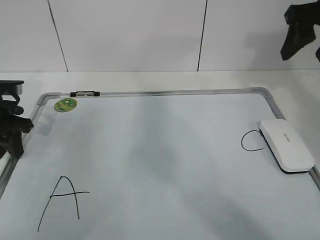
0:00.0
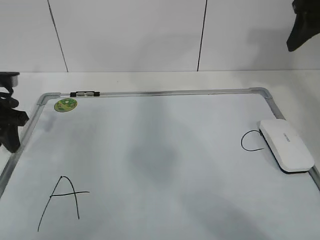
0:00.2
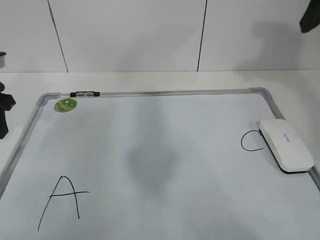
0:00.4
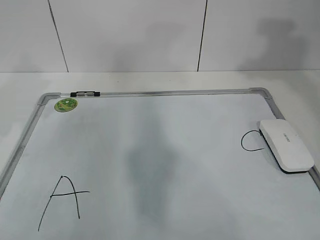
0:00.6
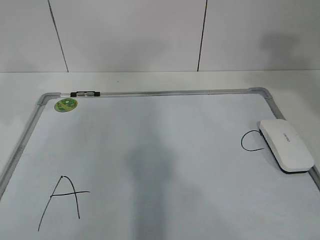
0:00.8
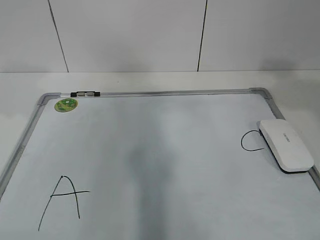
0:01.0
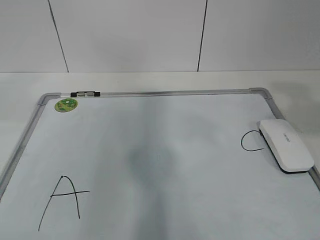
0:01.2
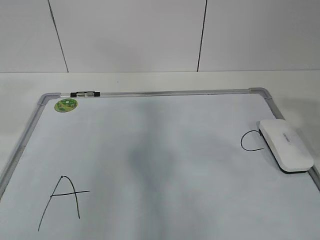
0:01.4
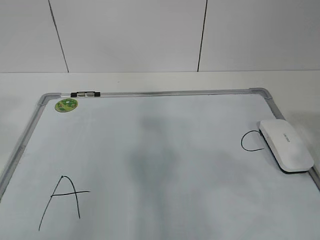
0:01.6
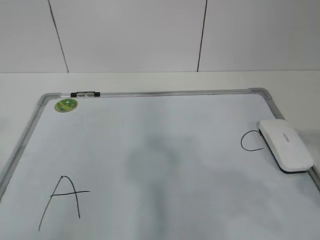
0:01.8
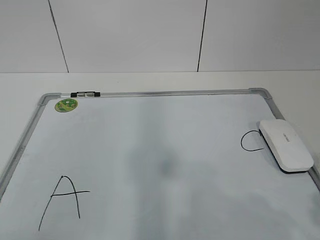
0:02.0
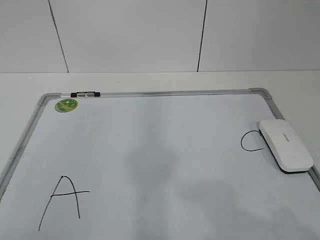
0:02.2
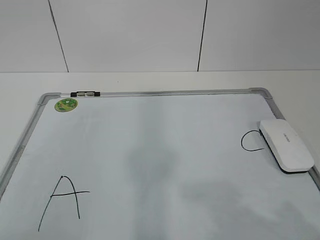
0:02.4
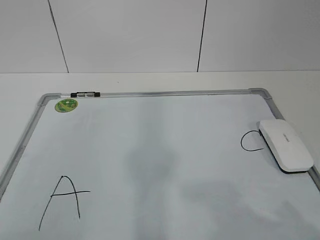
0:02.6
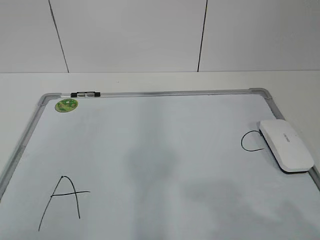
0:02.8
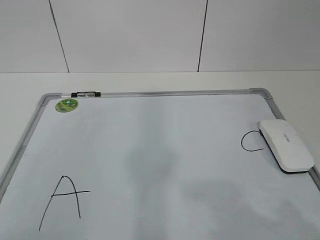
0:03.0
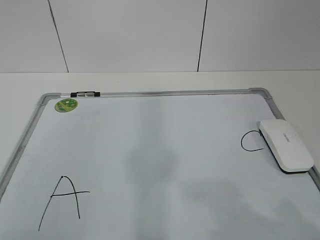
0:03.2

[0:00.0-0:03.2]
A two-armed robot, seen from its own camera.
Task of the whole recording: pick up the eraser on the blackboard and erase the letter "B".
0:00.0 to 0:01.6: The left gripper shifts roughly 35 cm backward and upward. Meanwhile the right gripper goes roughly 30 cm backward.

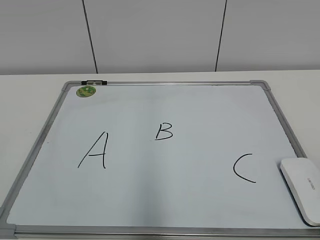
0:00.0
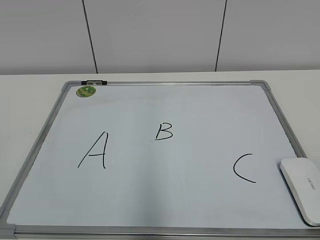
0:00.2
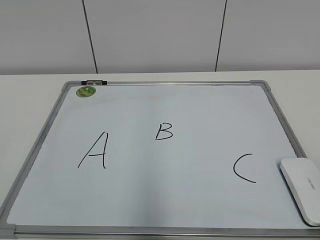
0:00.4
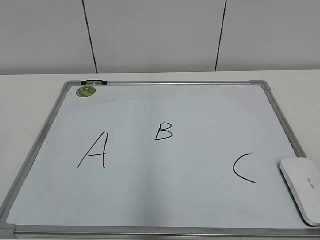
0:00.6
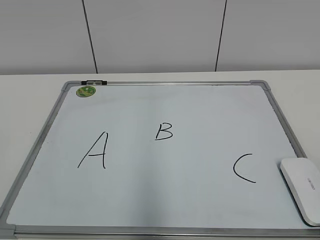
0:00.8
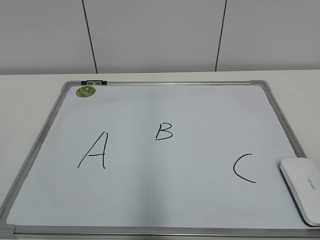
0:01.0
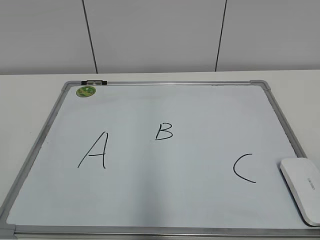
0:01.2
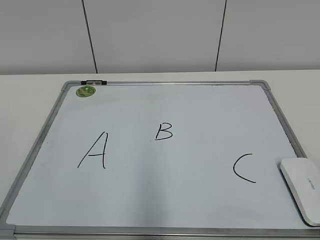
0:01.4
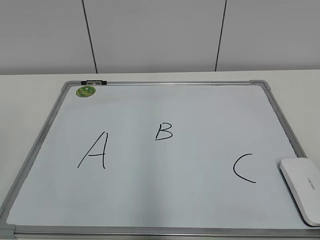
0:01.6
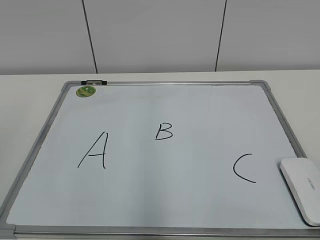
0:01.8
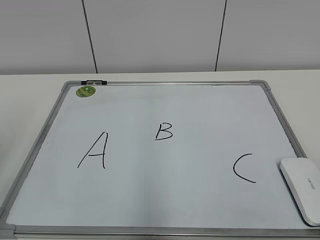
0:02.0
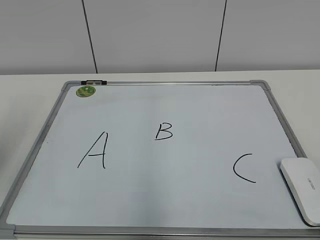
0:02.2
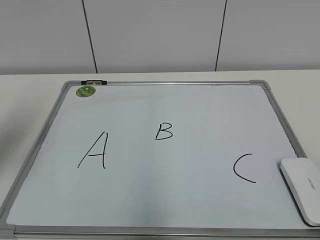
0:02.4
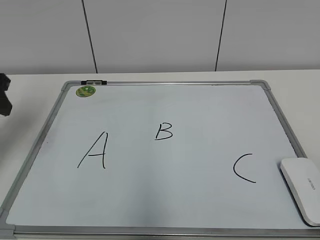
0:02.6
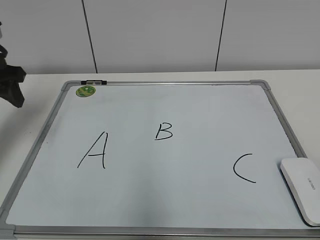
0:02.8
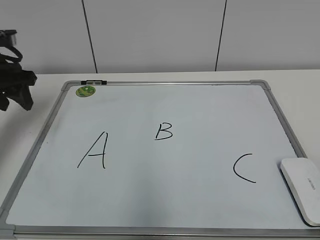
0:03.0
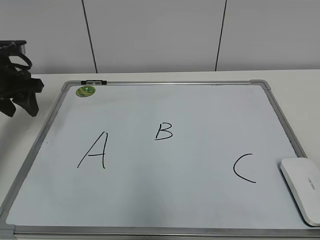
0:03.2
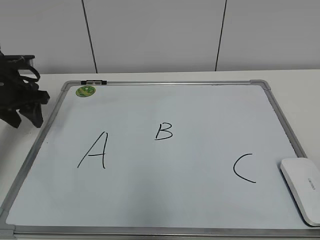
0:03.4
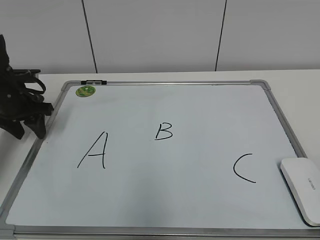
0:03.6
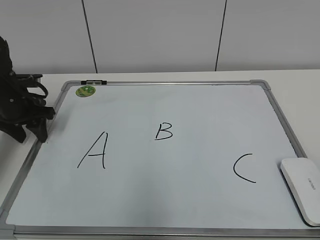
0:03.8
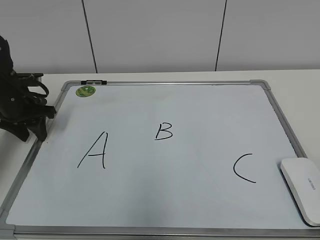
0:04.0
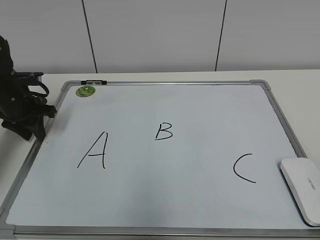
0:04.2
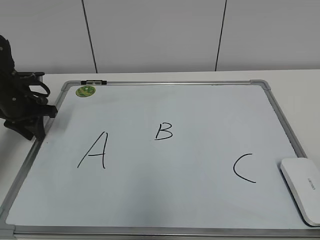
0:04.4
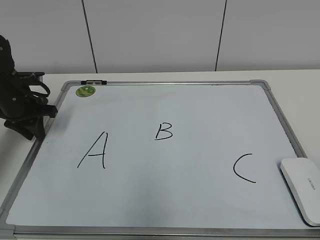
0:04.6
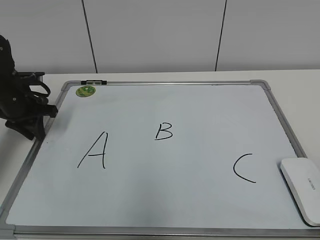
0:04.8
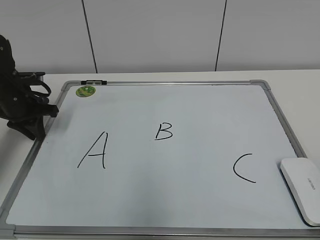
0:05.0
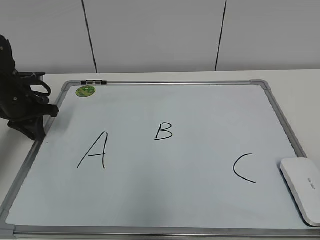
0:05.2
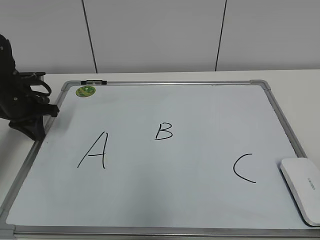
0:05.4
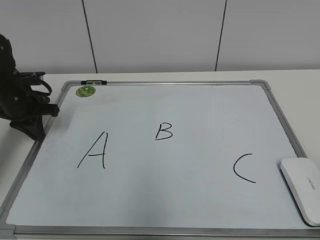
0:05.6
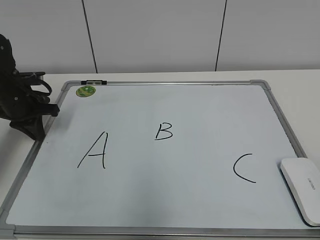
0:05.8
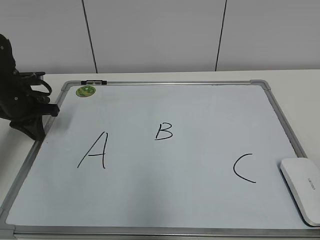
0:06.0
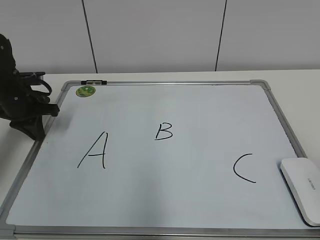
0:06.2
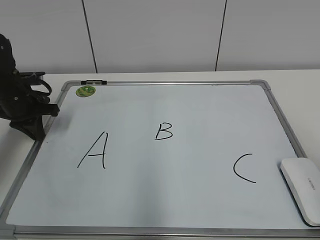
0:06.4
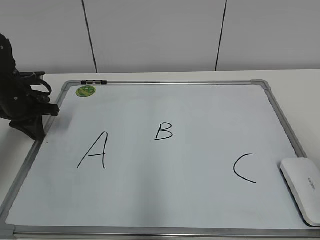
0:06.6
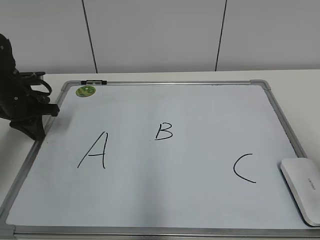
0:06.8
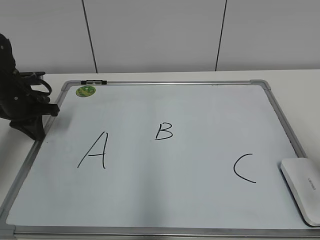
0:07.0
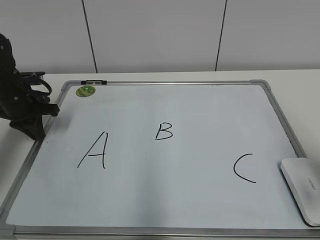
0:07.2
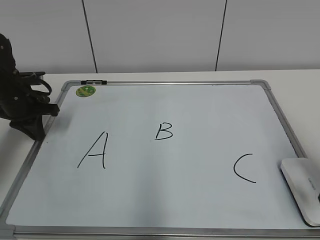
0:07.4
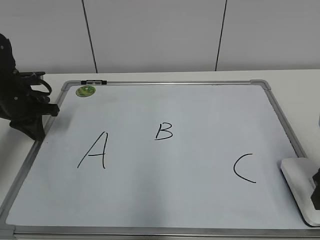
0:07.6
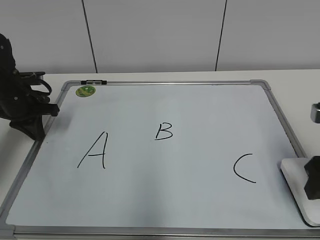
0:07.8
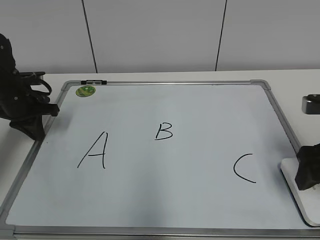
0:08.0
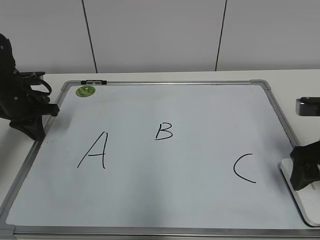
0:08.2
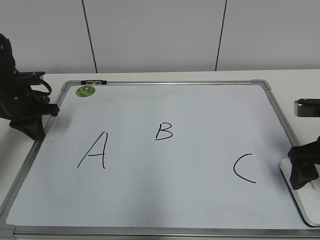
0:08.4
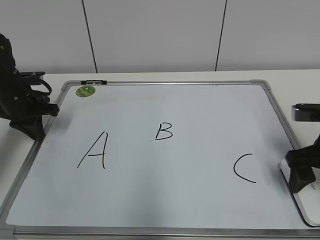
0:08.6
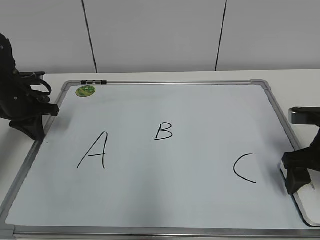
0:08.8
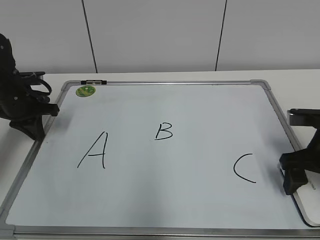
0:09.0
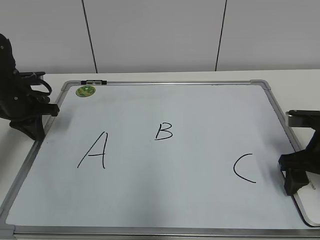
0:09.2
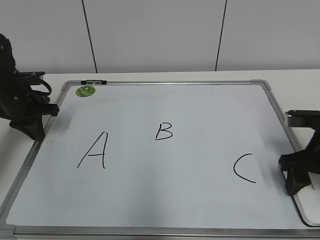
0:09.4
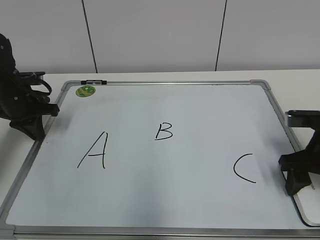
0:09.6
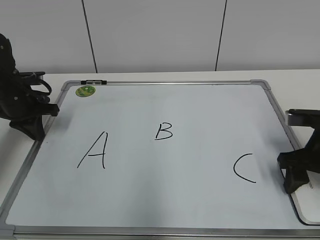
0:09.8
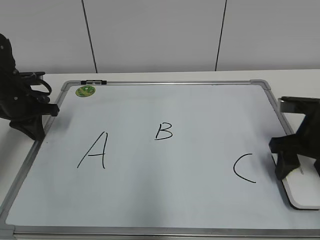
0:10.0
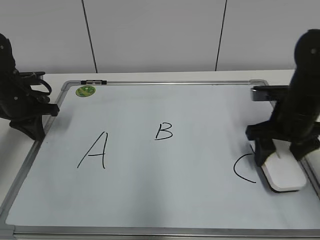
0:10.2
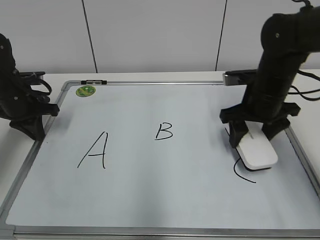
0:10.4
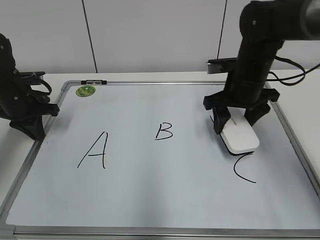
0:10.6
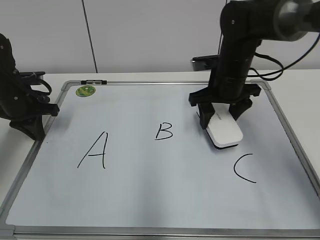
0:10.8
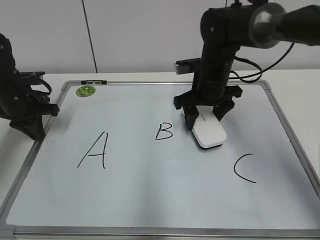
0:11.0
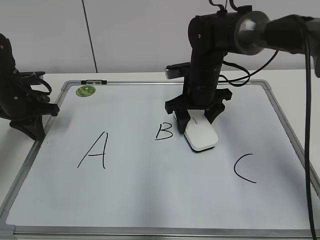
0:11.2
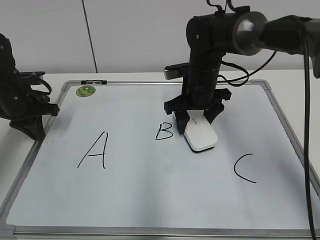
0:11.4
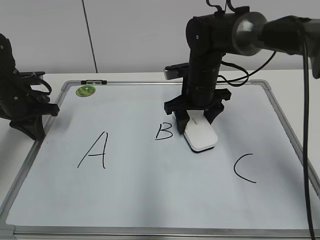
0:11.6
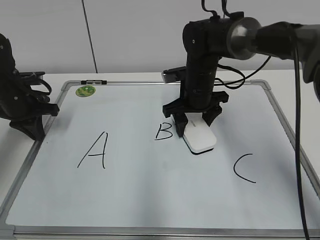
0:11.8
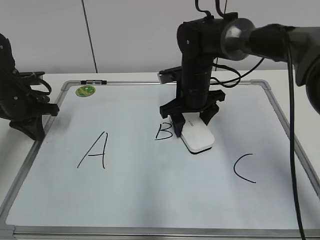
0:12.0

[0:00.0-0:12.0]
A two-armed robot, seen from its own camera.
Task of the whole recording: pick up the eraser on the blackboard and erase the letter "B".
Step, 0:00.0 to 0:05.2: Hold the drawing board steady with your left hand.
Step, 0:05.4 to 0:09.4: Grab the eraser with your right hand.
0:01.6 to 0:03.0: The left gripper goes about 35 cm forward.
0:03.0 to 0:04.4: The left gripper travels downward by roughly 10 cm, and closes up.
0:04.4 to 0:06.0: The left gripper closes.
0:06.0 to 0:07.6: The right gripper is displaced forward by some 20 cm.
0:07.6 to 0:09.0: The right gripper is displaced forward by approximately 10 cm, and opens up.
0:09.0 to 0:10.4: The right gripper moves forward and to the left, some 10 cm, and closes its fingers.
0:10.4 to 0:12.0: The right gripper is displaced to the left and forward by about 15 cm.

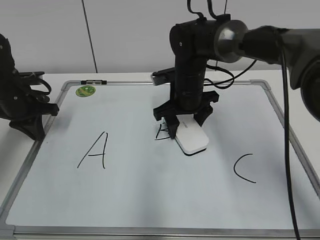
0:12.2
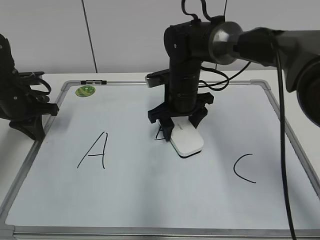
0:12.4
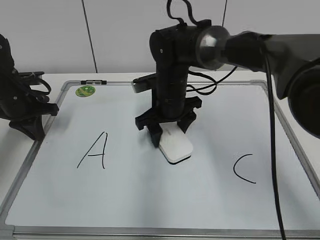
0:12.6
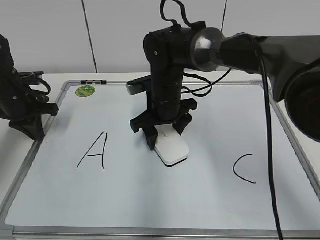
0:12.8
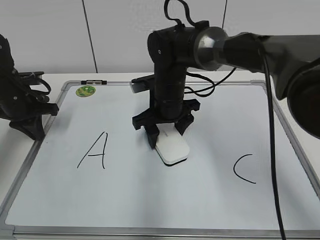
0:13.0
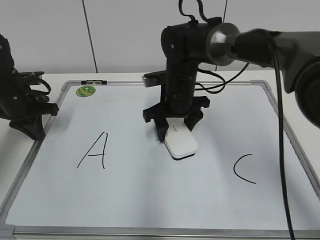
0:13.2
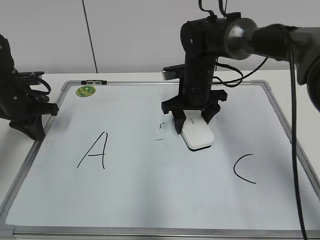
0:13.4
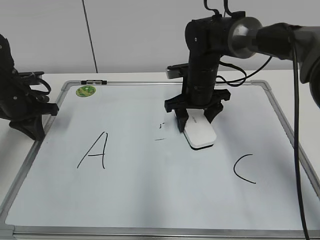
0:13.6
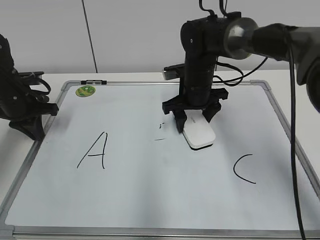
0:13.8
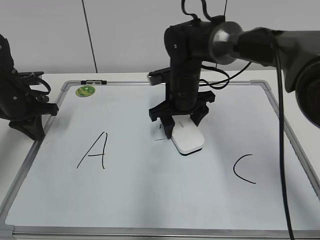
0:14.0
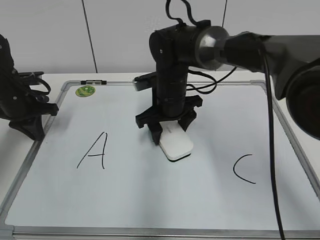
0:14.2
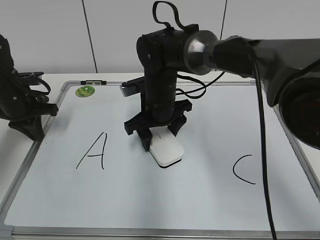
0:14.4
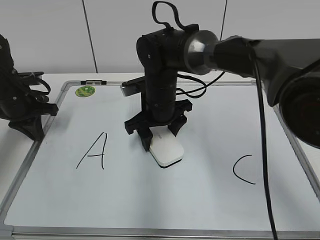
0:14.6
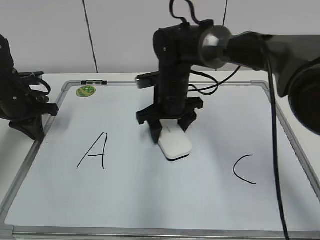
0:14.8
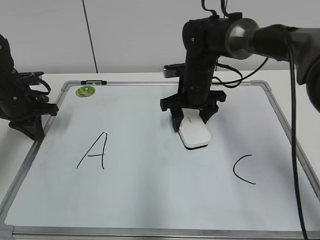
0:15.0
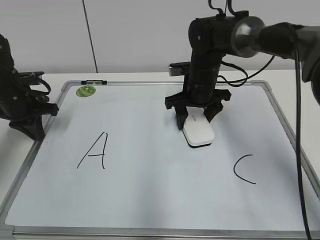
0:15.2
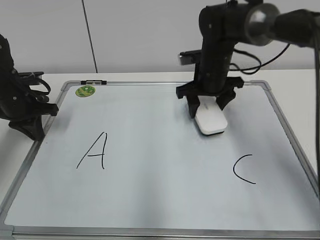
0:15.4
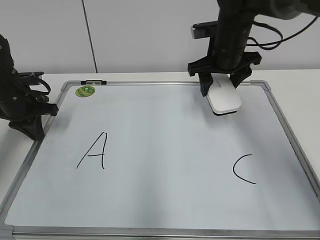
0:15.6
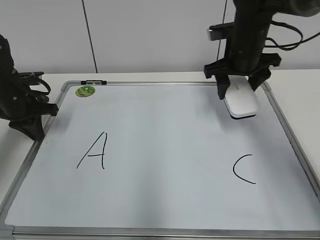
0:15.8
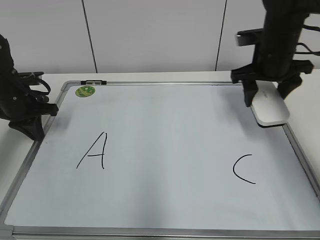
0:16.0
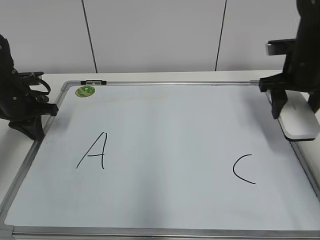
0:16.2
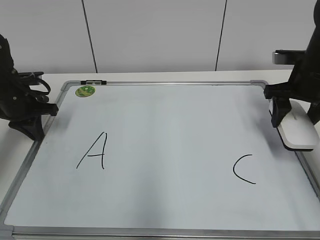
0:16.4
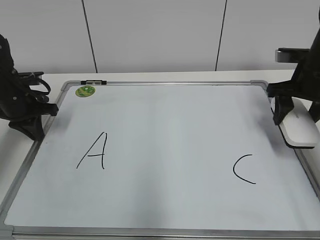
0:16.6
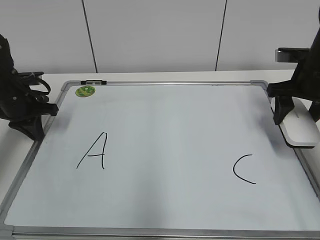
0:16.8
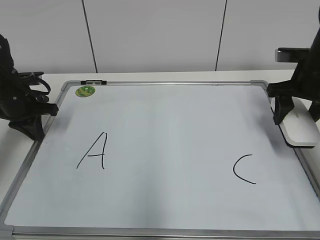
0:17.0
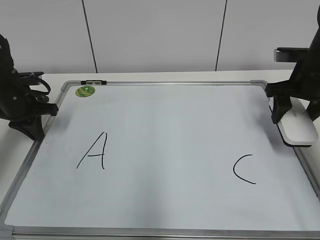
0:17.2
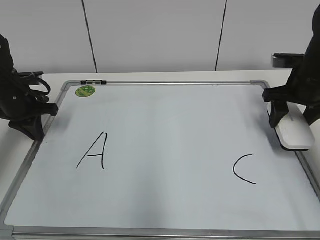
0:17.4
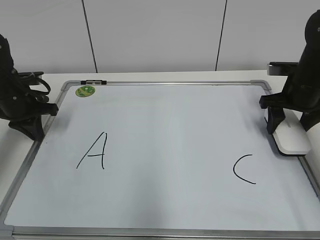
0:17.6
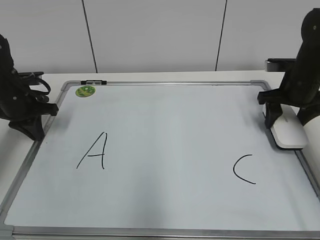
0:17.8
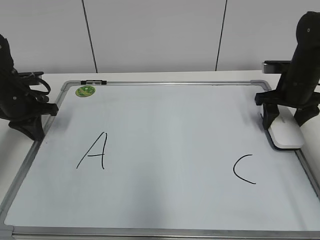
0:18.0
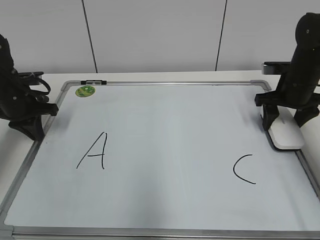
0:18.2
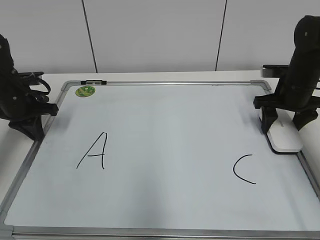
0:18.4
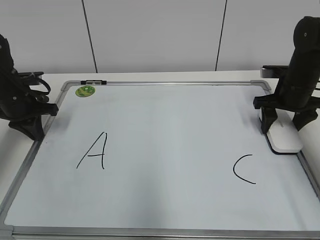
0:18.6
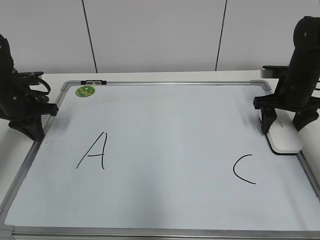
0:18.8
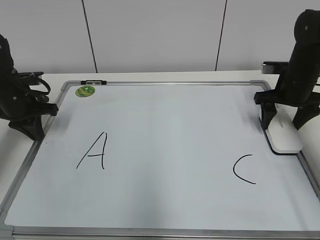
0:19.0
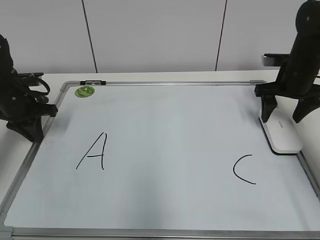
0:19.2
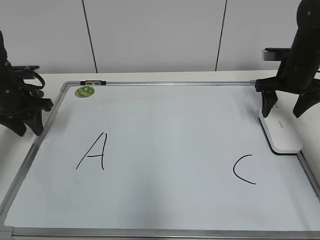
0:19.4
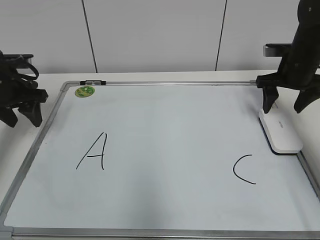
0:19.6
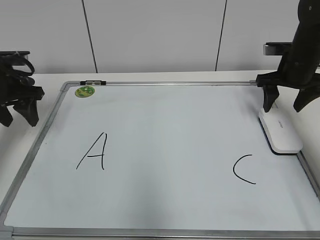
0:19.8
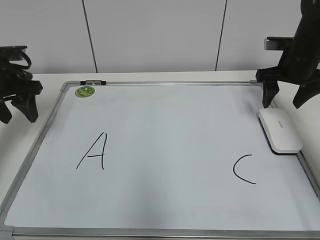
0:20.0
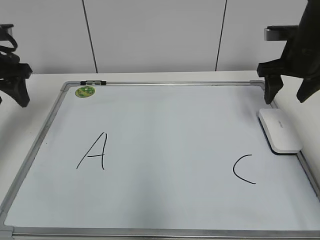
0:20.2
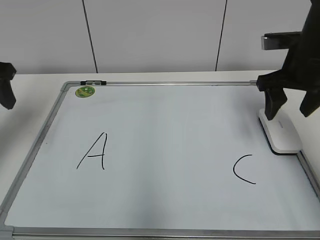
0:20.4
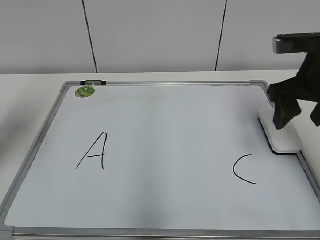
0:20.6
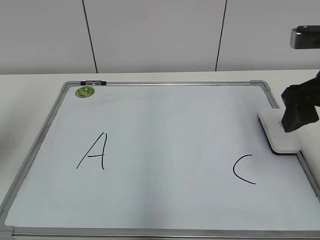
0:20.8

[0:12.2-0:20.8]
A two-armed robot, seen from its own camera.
Task of the whole recording: pick up the eraser on the blackboard and erase the letter "B".
Step, 0:12.2 to 0:15.0: Erase the letter B with your right hand.
0:12.2 to 0:13.6: The grippers stay close to where they were, moving slightly.
0:13.6 to 0:15.0: The right gripper moves about 10 cm to the left and comes back.
0:15.0 to 0:16.6: The right gripper travels to the right by about 20 cm.
0:16.6 to 0:18.0: The right gripper shifts by some 5 cm.
0:18.0 to 0:19.4: The right gripper opens up, while the left gripper opens up.
0:19.4 to 0:20.8: The two grippers go roughly 20 cm backward and upward. The left gripper opens.
